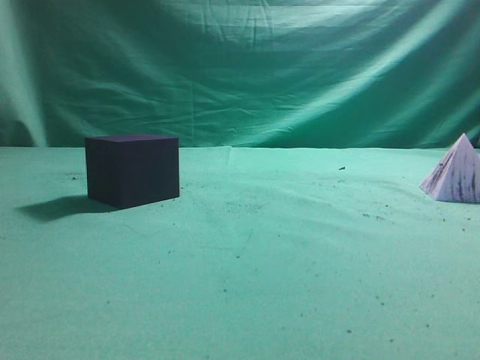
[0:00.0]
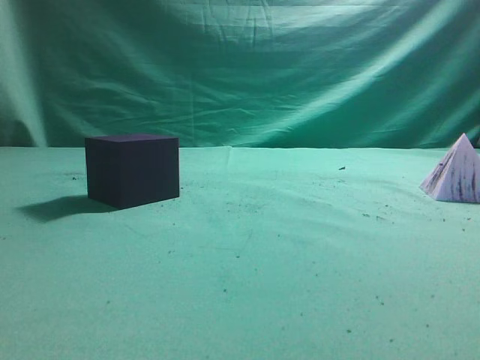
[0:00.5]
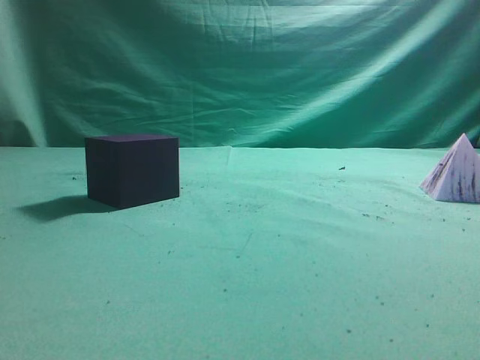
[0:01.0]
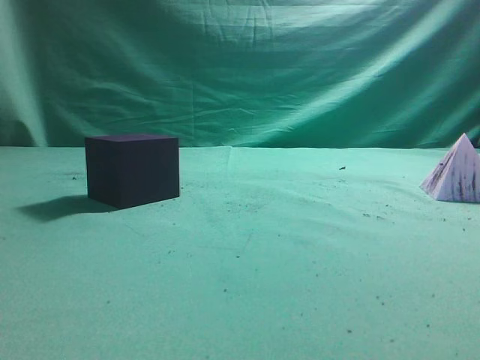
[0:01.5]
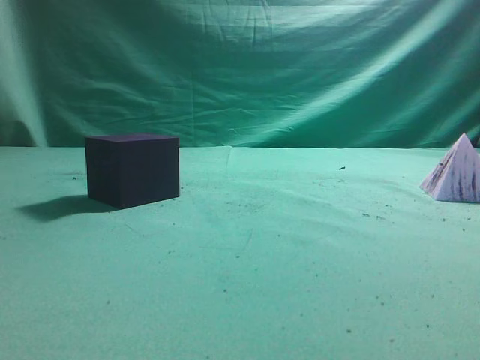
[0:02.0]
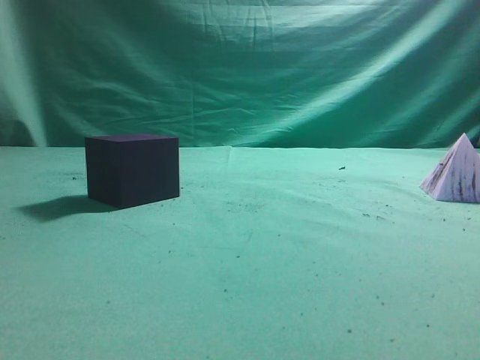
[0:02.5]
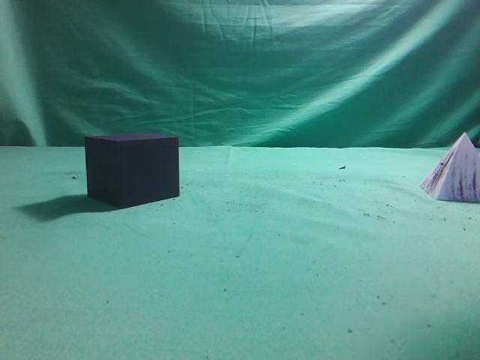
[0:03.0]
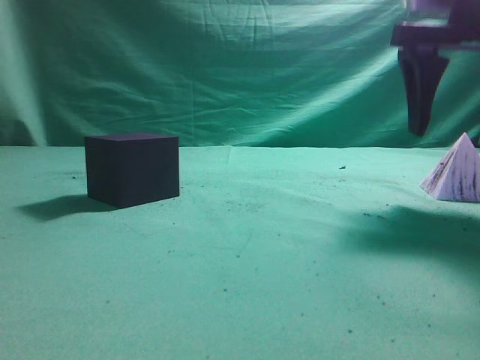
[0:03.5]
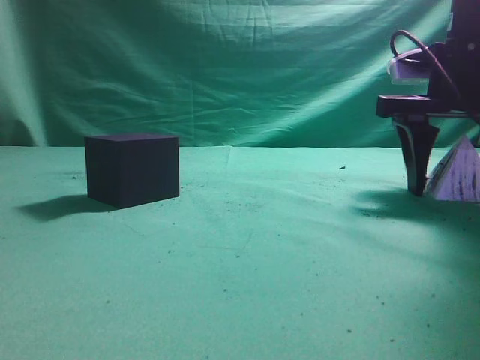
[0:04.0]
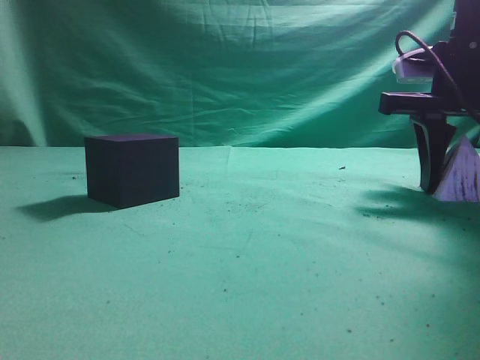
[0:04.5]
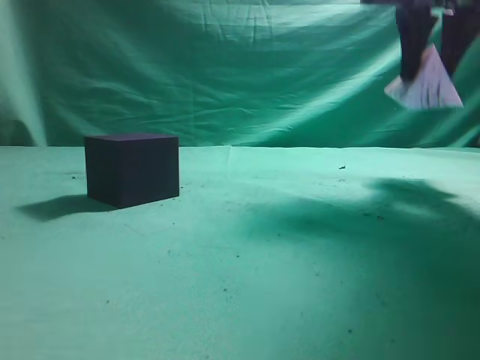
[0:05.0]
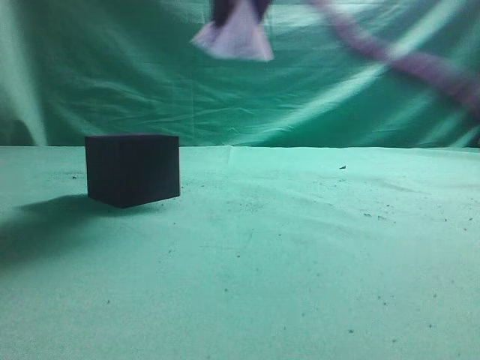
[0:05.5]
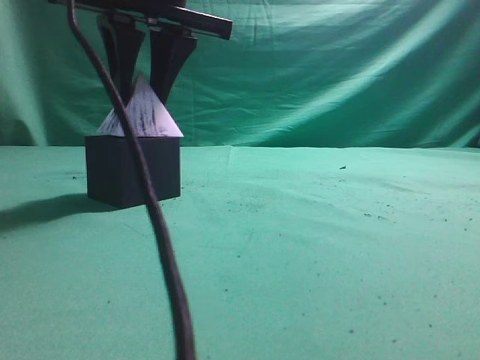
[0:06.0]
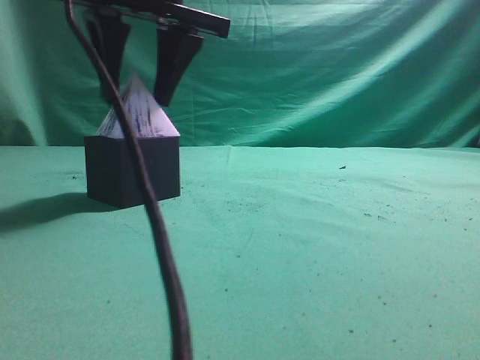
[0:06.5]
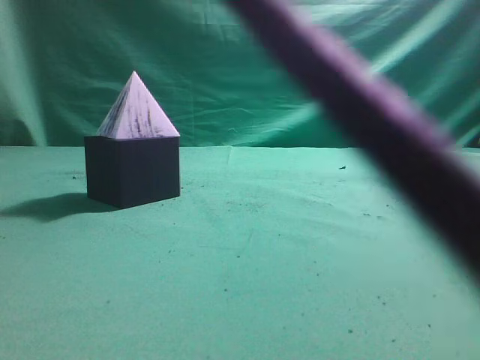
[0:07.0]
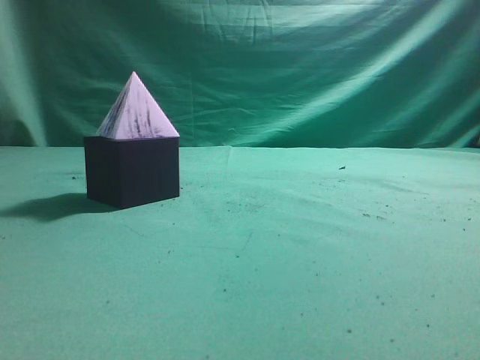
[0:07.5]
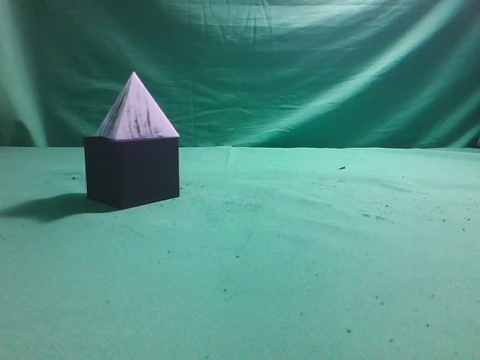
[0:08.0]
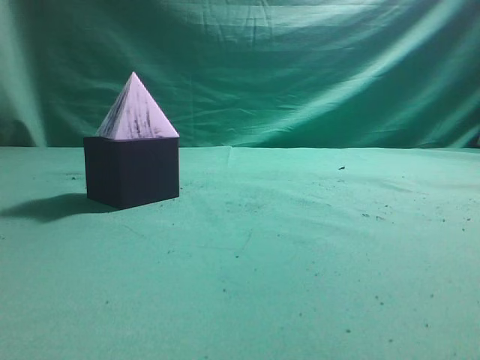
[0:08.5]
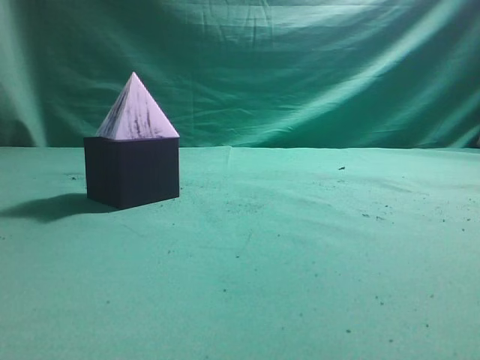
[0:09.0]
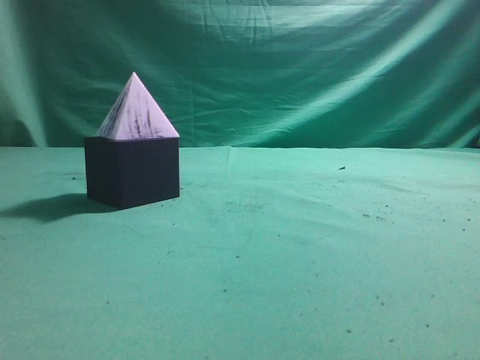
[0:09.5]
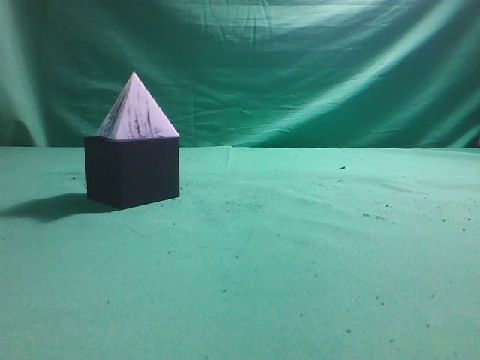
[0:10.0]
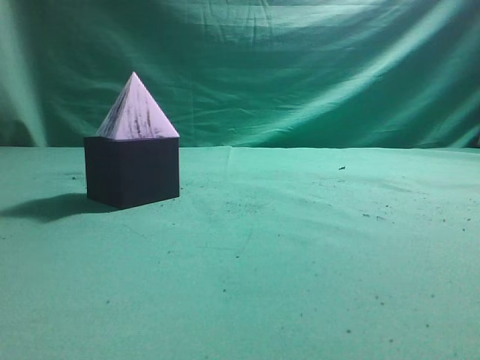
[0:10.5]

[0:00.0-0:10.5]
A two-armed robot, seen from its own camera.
Task of the whole recording: pick up the square pyramid from the table and place it on the cube block.
Step, 0:00.0 to 0:04.5: Grasp the triangular block.
Step, 0:05.0 to 0:06.5: Place the block onto the cube-shaped block.
0:02.0 to 0:04.0: The right gripper heads forward, covering some 30 cm, and opens.
0:04.0 to 0:06.5: The right gripper goes roughly 25 cm to the left, and closes up.
0:06.5 to 0:08.5: The right gripper travels to the right, backward and upward by approximately 40 cm, and closes its fingers.
